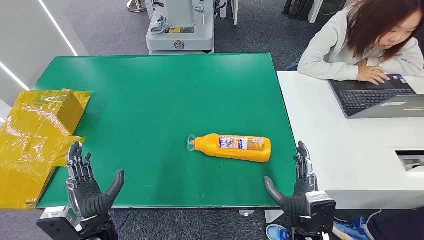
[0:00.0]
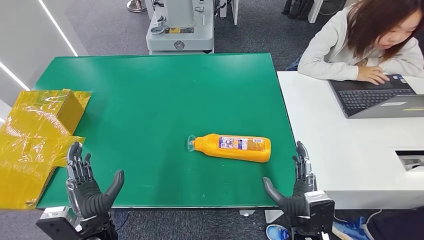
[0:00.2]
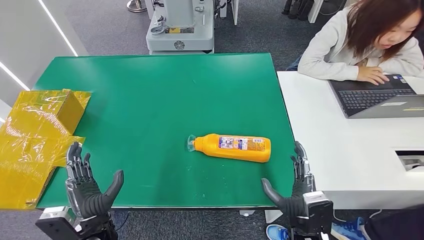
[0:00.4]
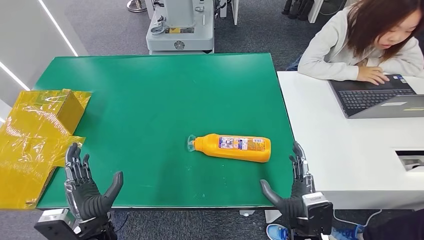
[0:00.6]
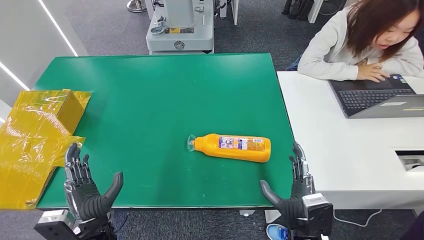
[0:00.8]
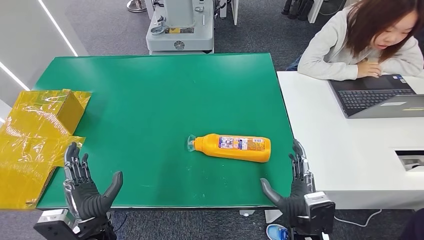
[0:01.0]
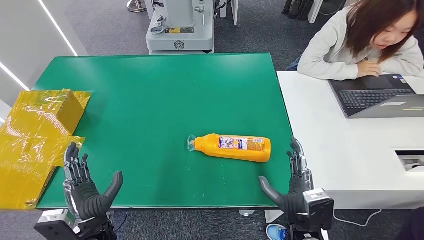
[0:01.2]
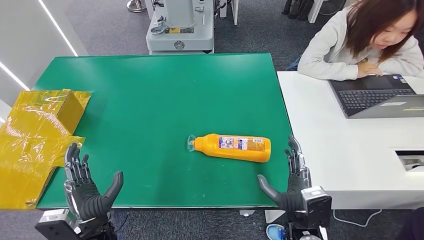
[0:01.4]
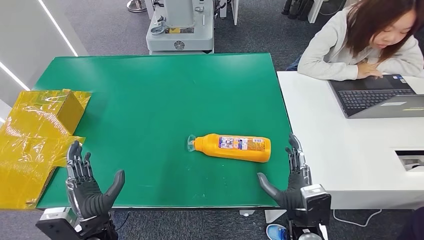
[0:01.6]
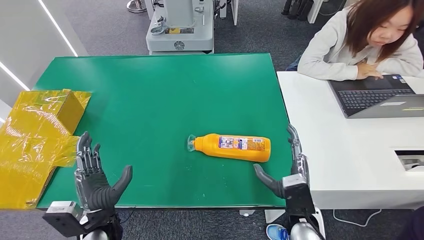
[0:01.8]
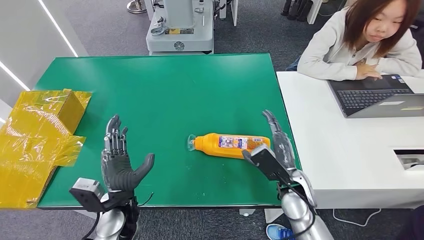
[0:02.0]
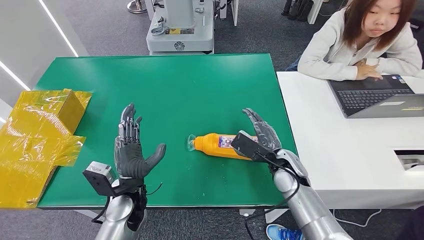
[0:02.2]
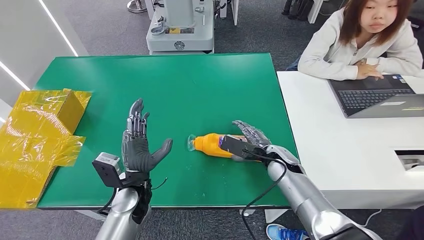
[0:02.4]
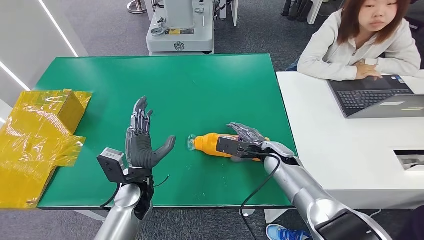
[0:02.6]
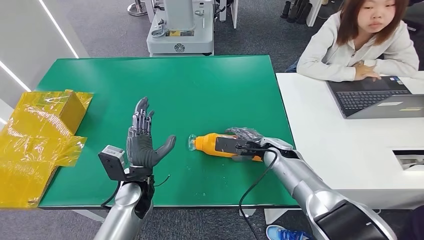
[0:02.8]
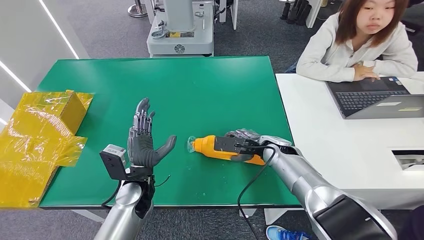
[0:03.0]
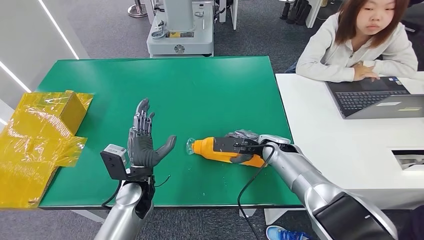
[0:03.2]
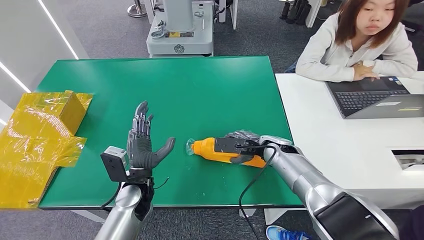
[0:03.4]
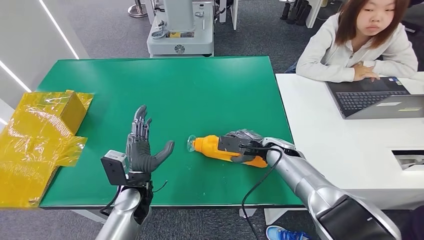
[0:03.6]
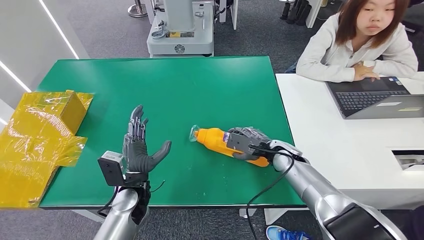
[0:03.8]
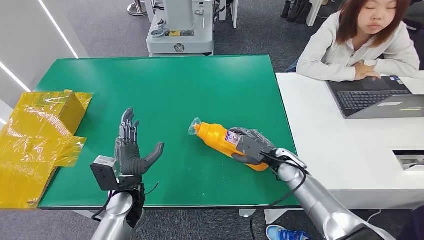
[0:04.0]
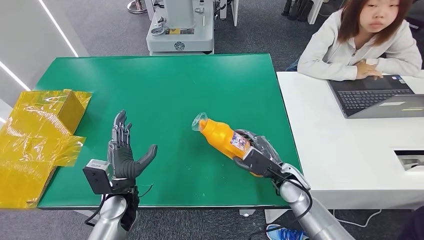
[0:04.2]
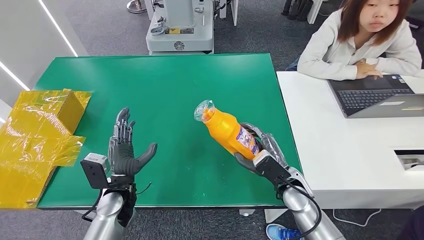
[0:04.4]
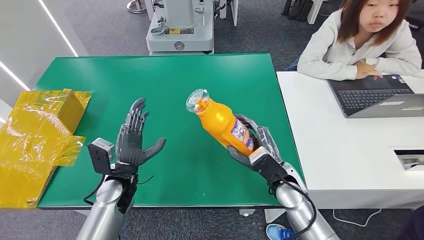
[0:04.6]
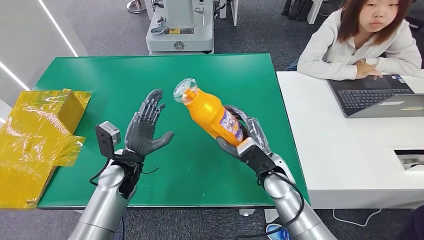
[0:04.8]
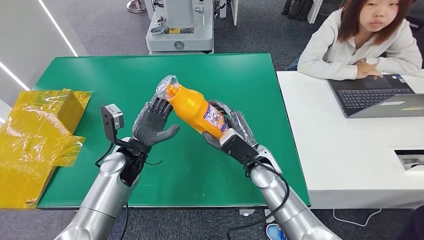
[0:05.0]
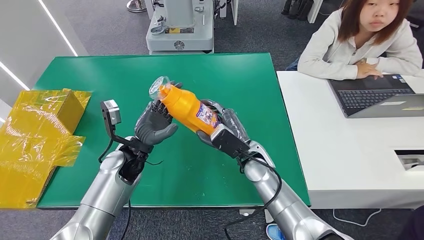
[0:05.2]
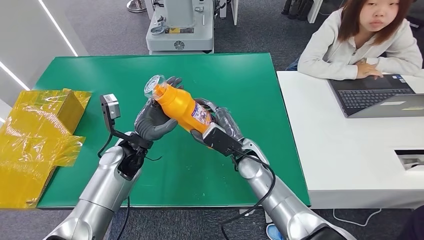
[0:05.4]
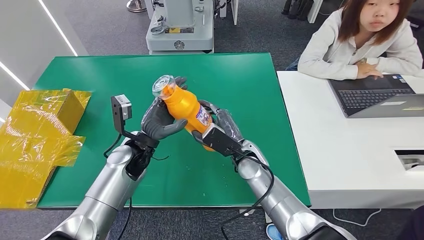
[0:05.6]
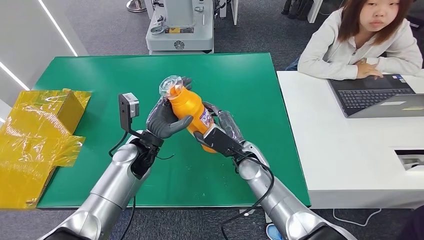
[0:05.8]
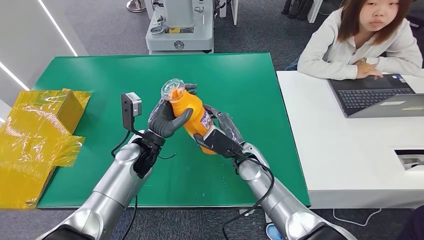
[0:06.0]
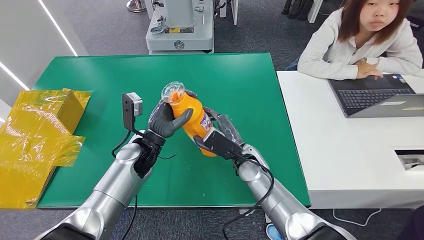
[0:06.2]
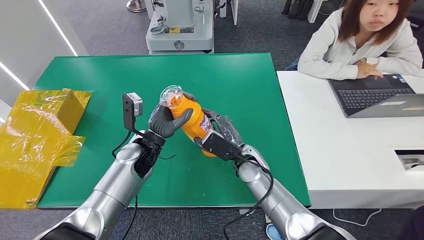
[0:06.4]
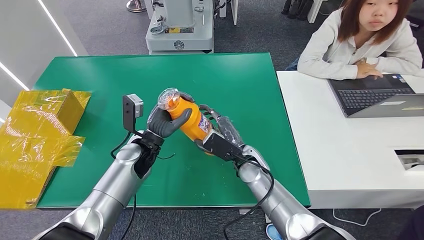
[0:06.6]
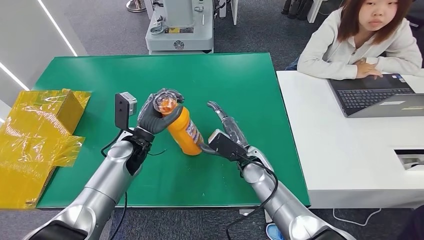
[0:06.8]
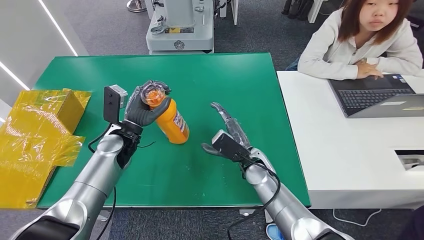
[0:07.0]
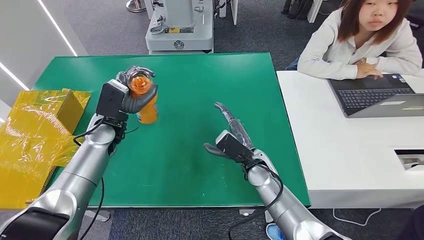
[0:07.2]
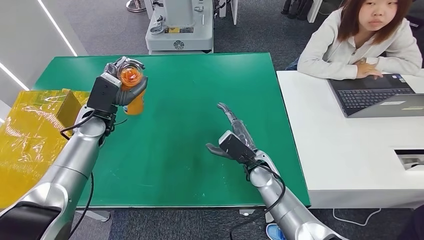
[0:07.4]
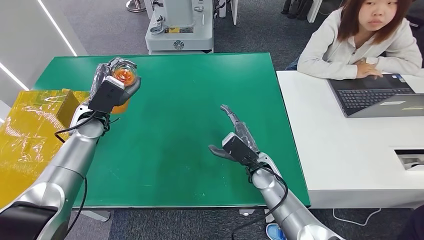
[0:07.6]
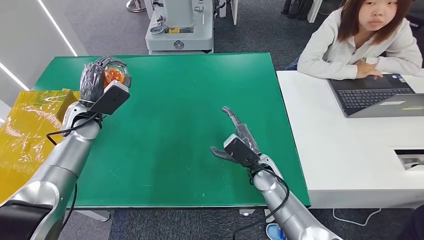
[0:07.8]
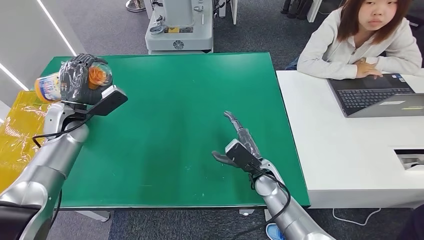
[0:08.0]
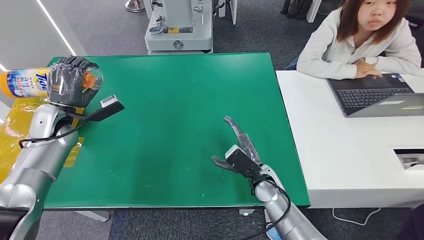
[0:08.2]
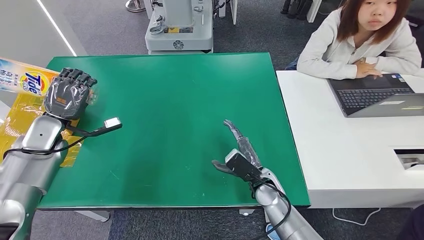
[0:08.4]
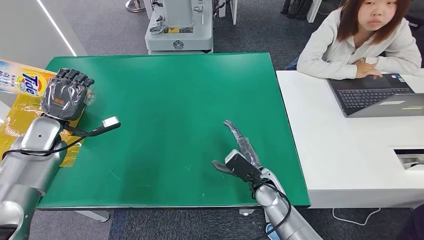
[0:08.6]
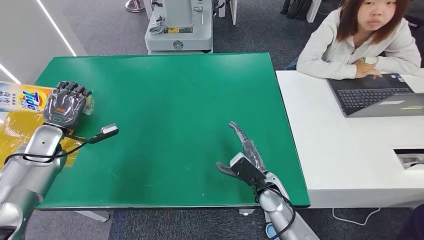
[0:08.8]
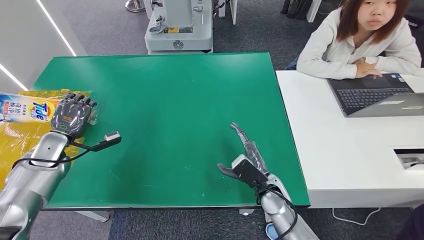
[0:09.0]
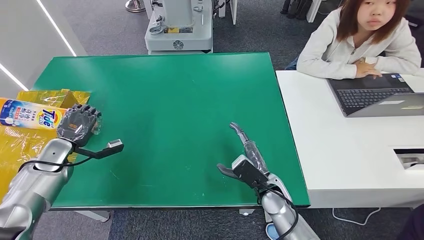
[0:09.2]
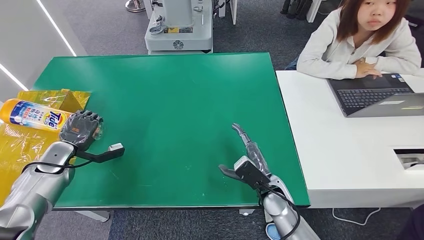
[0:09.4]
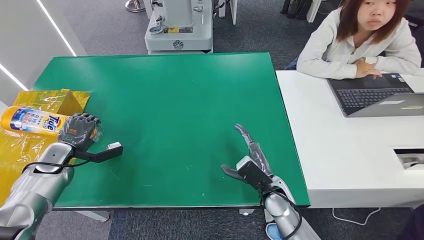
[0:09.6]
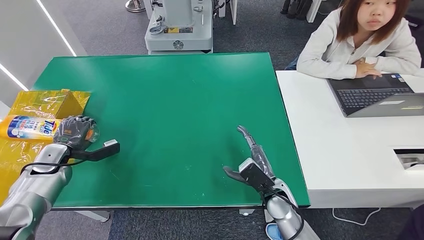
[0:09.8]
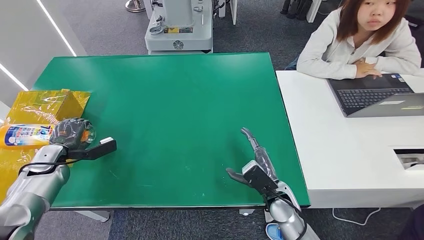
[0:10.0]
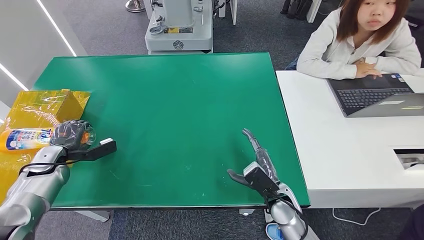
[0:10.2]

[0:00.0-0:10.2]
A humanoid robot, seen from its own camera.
Step, 0:00.0 to 0:05.2: Pick up the bottle from the table.
0:04.4 to 0:05.8: The left hand is displaced forward and upward by roughly 10 cm. Meanwhile the right hand is displaced to the left and forward by about 15 cm.
0:05.8 to 0:07.2: The left hand goes about 10 cm to the left and forward.
0:08.8 to 0:10.2: The left hand shifts some 5 cm downward.

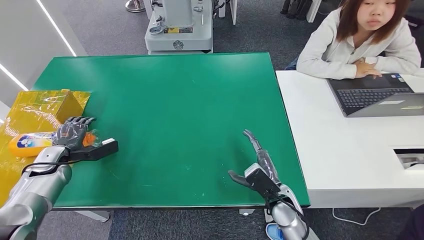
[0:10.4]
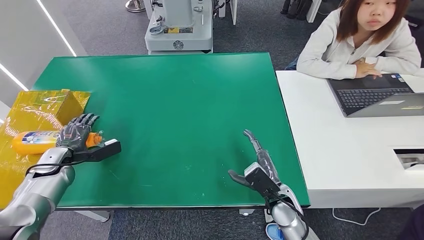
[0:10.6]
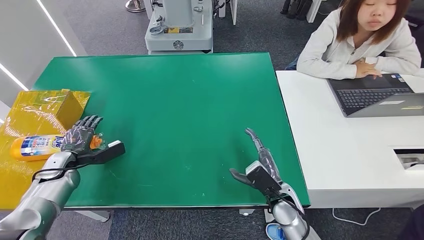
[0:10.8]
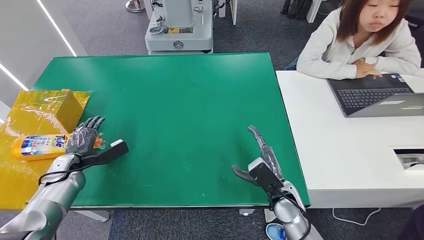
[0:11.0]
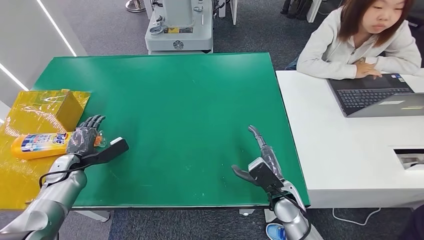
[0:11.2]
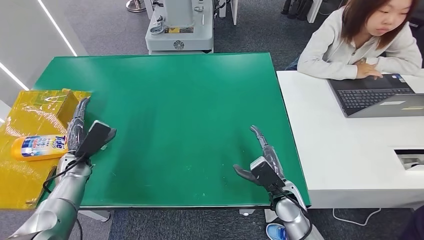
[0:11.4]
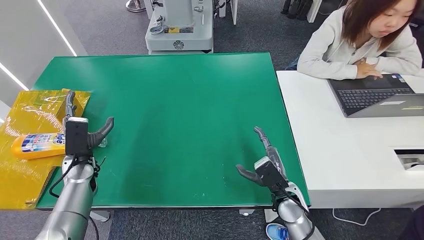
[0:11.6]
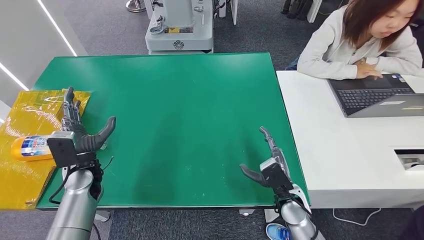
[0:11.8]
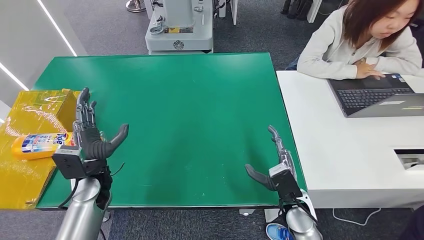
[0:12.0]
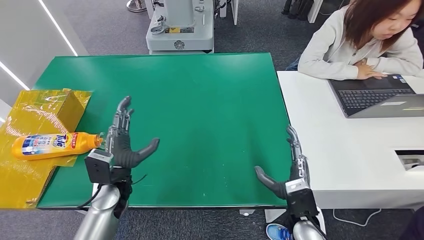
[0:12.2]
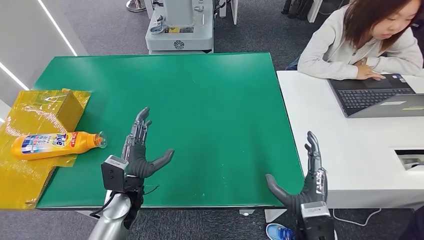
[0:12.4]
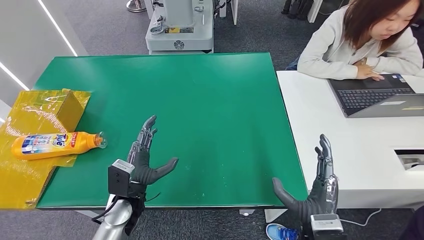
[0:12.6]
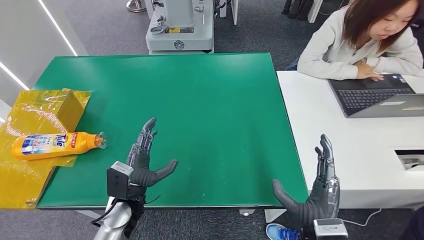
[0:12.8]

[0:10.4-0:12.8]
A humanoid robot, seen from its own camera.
Step, 0:10.4 to 0:12.8: Turn the bottle to the front side.
0:10.4 to 0:11.6: The left hand moves to the right, roughly 10 cm.
0:11.6 to 0:12.8: The right hand is displaced backward and upward by roughly 15 cm. The left hand heads to the right and backward, covering some 20 cm.
